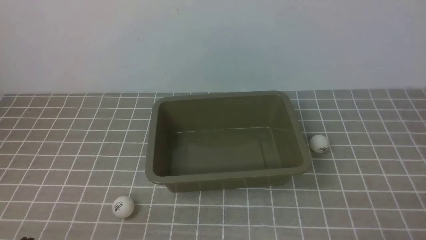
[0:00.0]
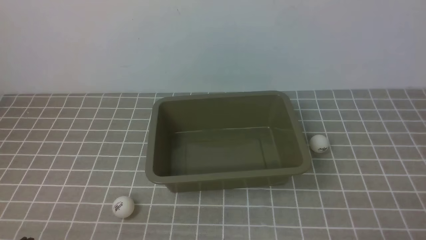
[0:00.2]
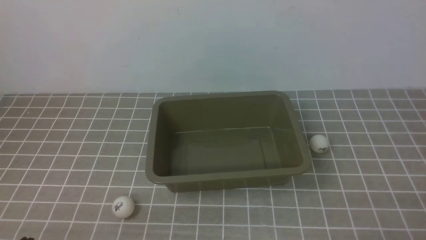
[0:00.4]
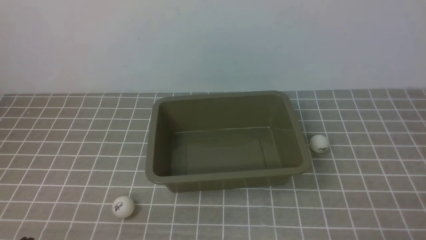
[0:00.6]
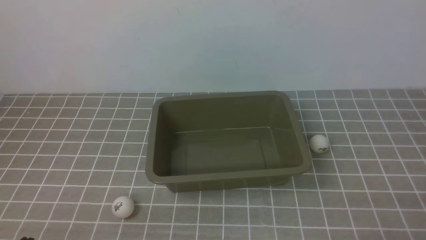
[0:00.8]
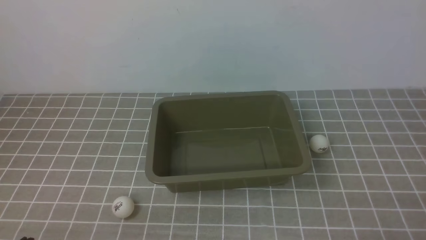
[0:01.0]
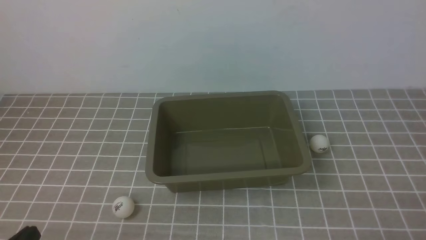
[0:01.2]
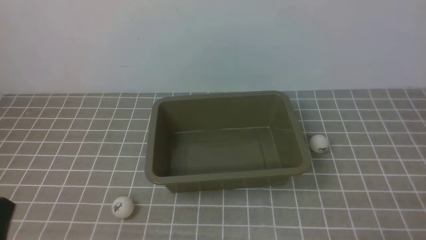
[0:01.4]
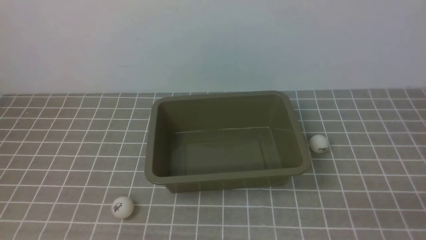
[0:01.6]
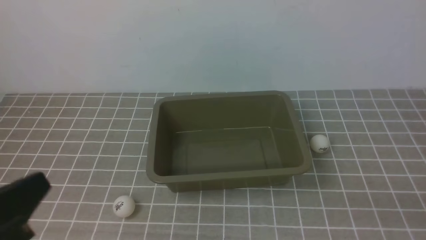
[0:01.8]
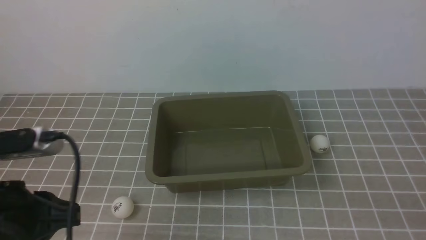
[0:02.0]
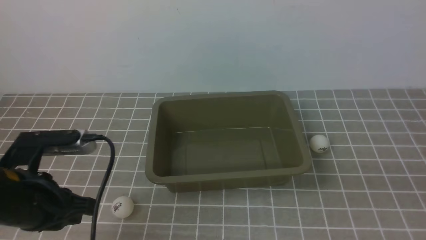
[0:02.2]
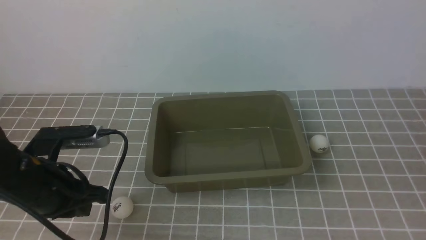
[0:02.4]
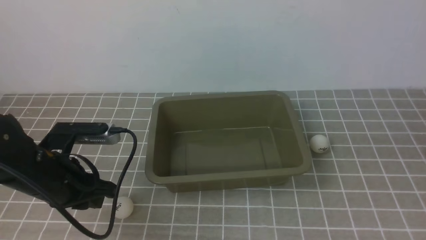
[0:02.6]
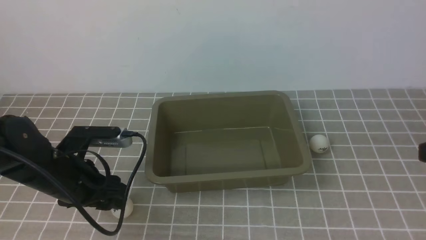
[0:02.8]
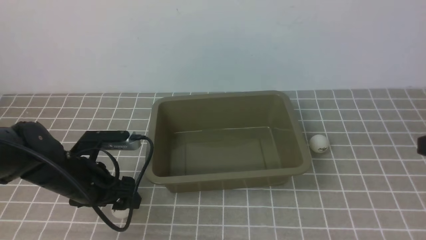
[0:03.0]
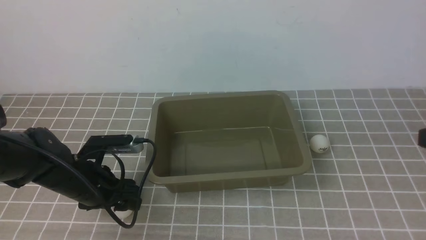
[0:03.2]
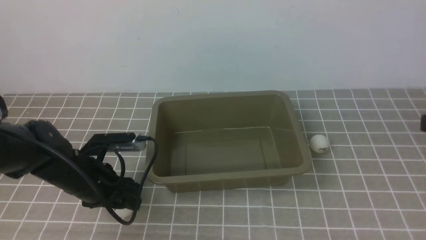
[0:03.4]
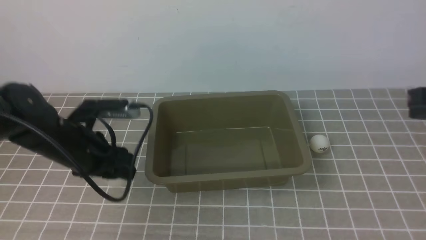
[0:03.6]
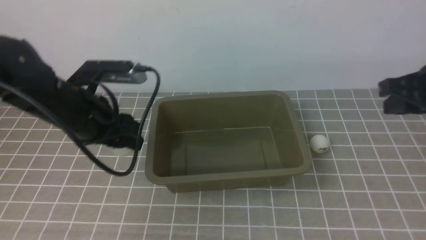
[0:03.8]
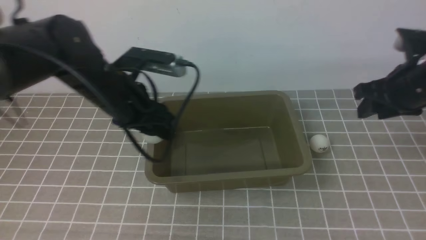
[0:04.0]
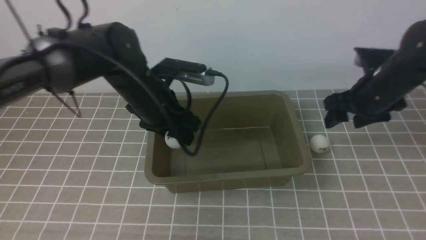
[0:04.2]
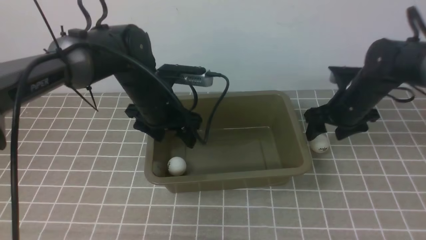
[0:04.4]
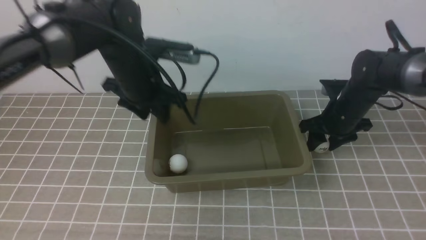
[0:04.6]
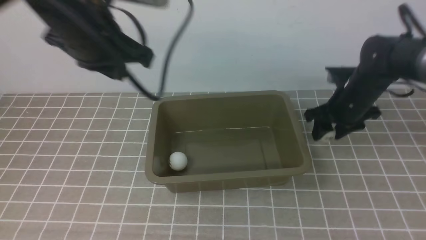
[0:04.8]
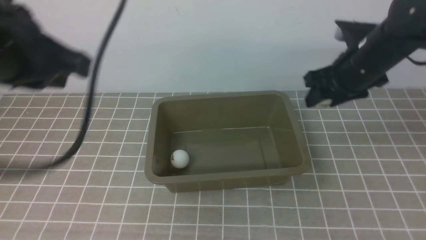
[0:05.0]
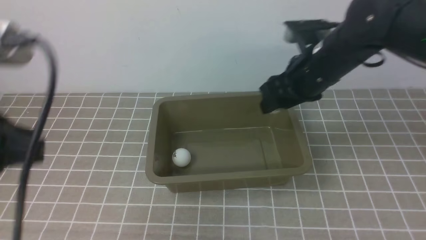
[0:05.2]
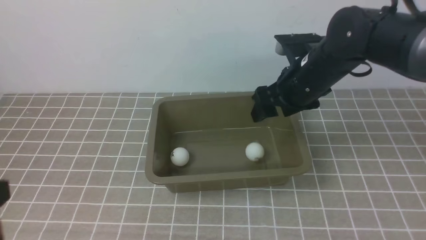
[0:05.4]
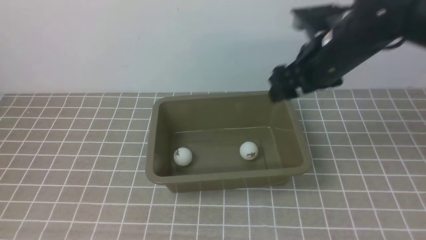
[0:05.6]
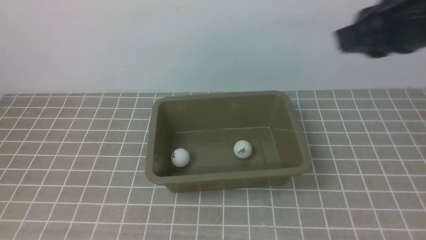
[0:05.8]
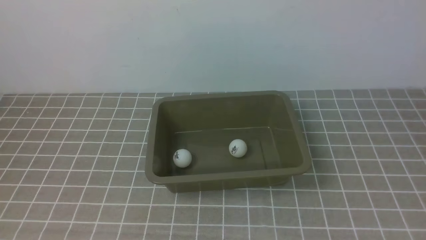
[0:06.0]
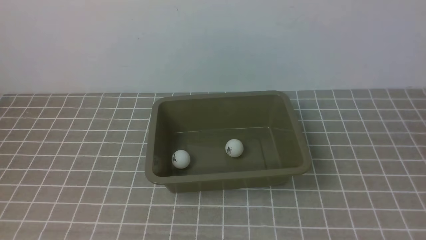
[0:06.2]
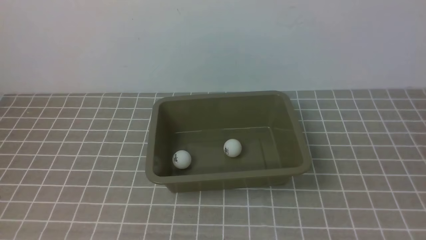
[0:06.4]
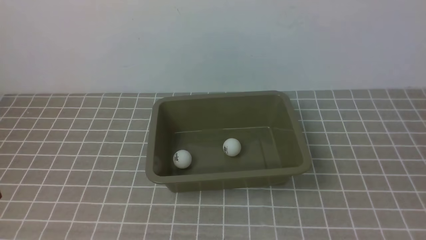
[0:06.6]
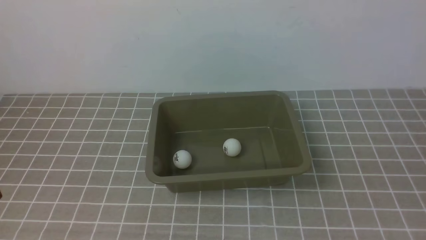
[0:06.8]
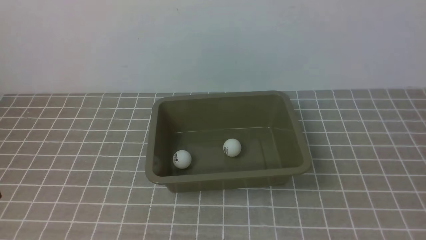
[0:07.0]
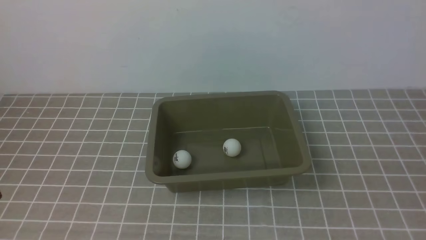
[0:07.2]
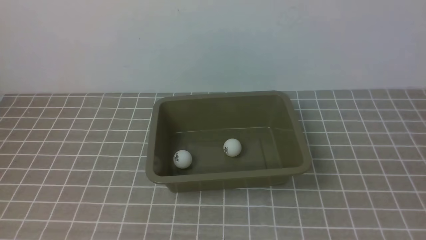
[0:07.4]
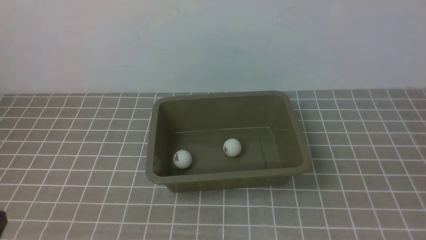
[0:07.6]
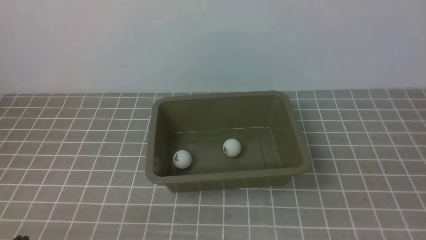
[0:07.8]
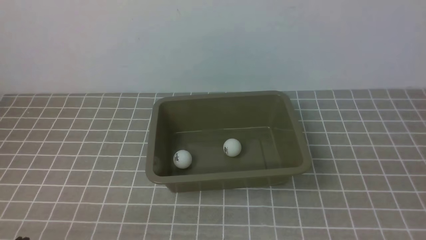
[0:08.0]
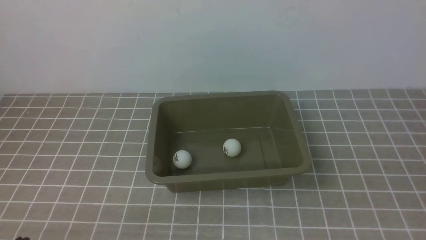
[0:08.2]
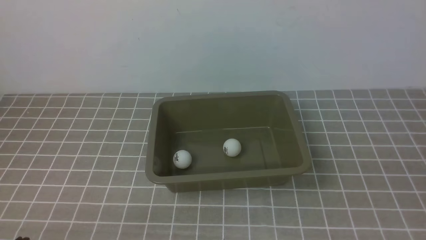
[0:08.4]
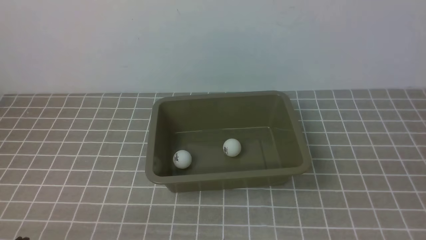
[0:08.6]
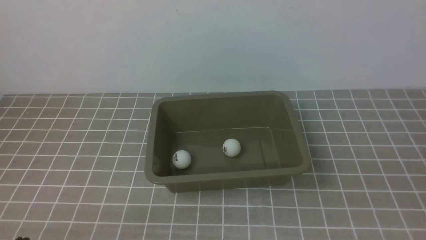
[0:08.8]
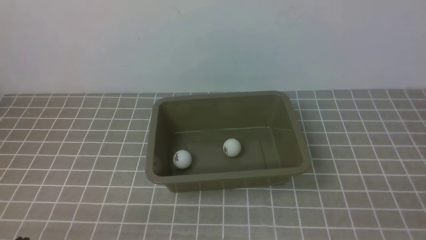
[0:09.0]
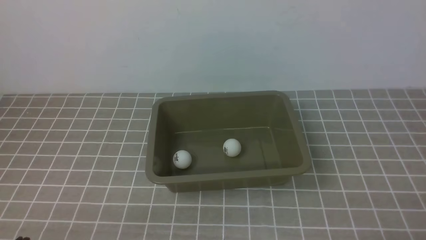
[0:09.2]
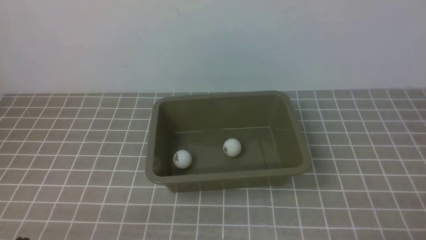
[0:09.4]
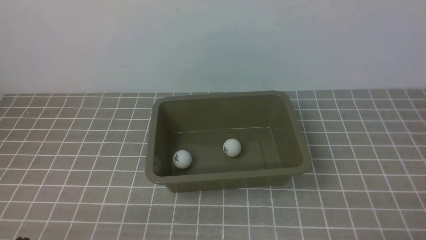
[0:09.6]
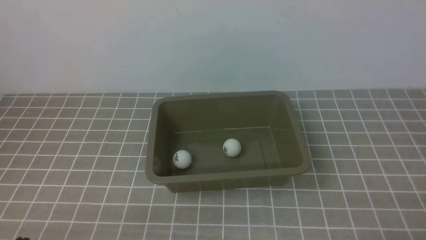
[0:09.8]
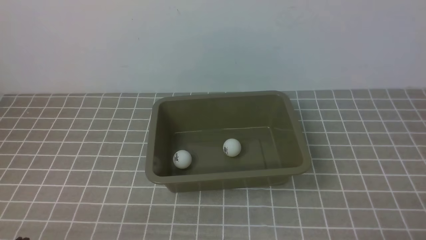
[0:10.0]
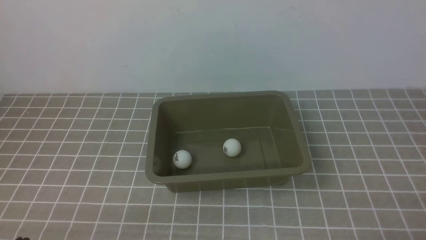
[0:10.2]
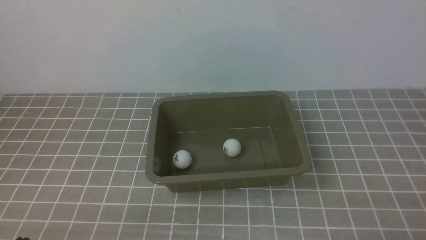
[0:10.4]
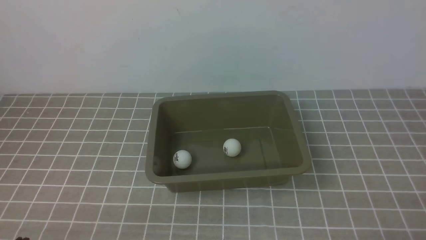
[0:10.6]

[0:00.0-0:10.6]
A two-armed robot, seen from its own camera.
Step, 0:00.0 to 0:03.4: use the left arm to clamp the table tennis ball closest to it.
Step, 0:03.6 to 0:04.4: use the left arm to put the table tennis ball into the box.
Step, 0:04.6 to 0:04.8: use the right arm to clamp the table tennis ball closest to it.
Step, 0:05.0 to 0:05.4: use the right arm to put the table tennis ball into the box.
0:01.6 to 0:03.0: The left gripper travels forward and downward by approximately 25 cm, and opens its fingers; the right gripper moves upward and forward, some 20 cm.
0:03.0 to 0:04.6: The left gripper moves upward, forward and to the right, roughly 20 cm, and closes up. The right gripper moves forward and downward, approximately 30 cm, and opens its fingers.
0:04.6 to 0:06.0: The left gripper goes some 30 cm backward, and closes up, while the right gripper heads backward and upward, covering roughly 35 cm, and closes up.

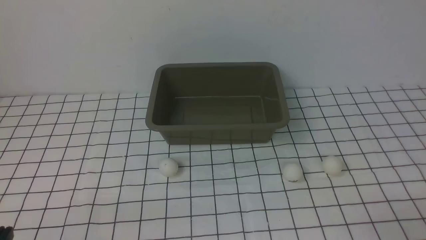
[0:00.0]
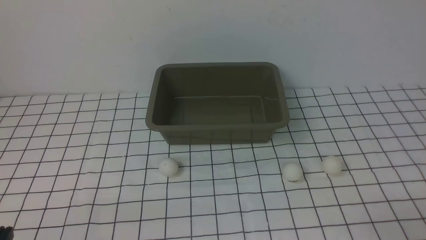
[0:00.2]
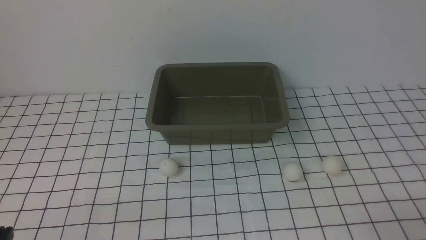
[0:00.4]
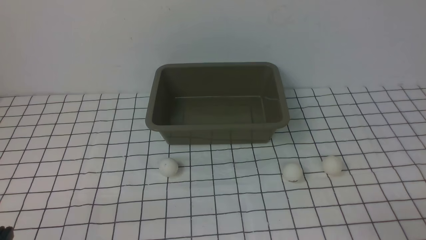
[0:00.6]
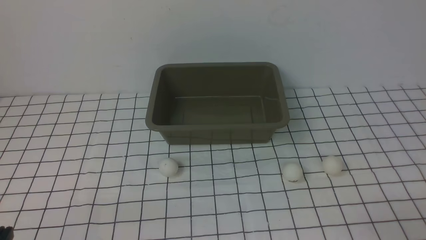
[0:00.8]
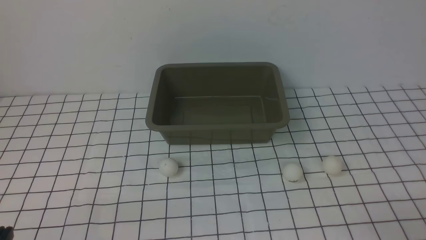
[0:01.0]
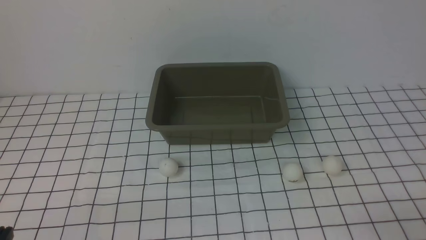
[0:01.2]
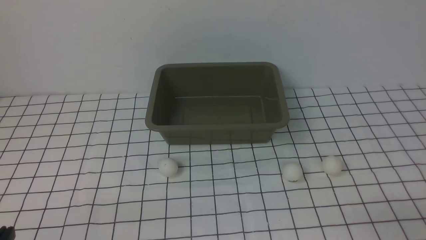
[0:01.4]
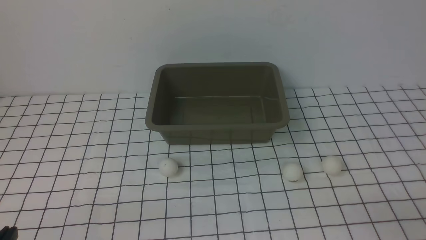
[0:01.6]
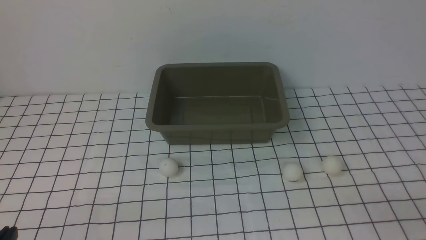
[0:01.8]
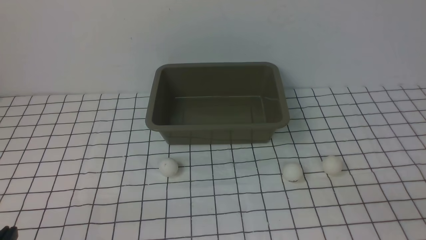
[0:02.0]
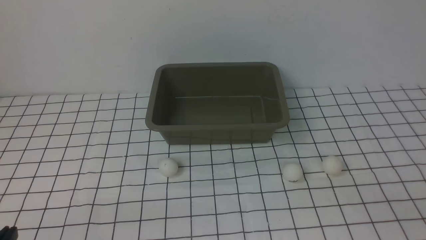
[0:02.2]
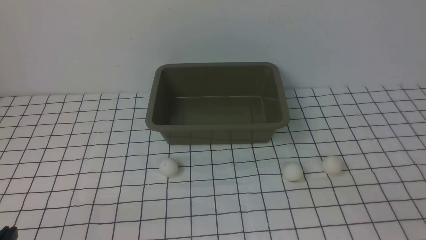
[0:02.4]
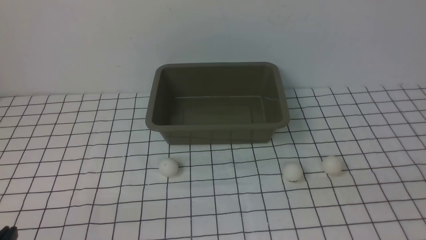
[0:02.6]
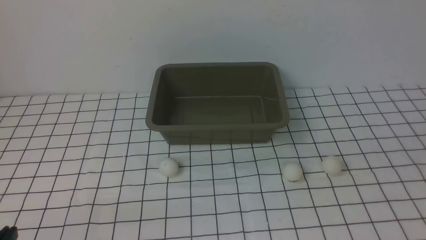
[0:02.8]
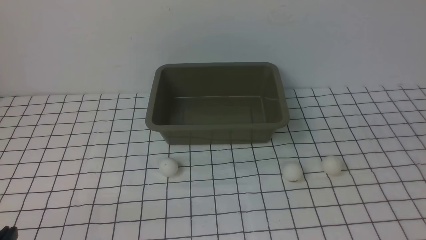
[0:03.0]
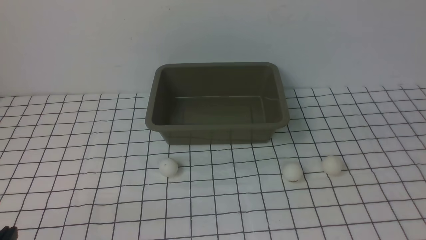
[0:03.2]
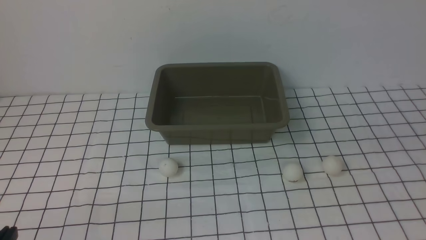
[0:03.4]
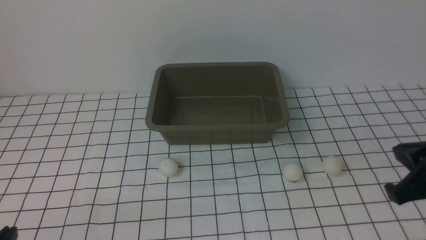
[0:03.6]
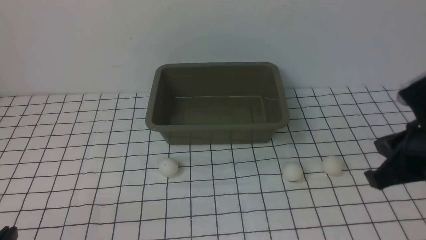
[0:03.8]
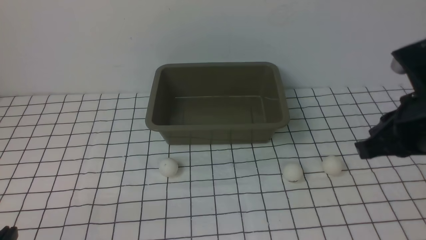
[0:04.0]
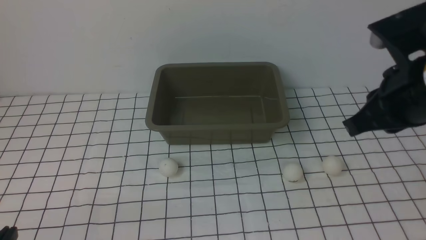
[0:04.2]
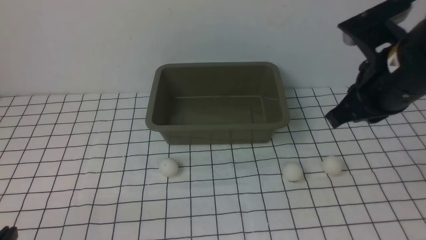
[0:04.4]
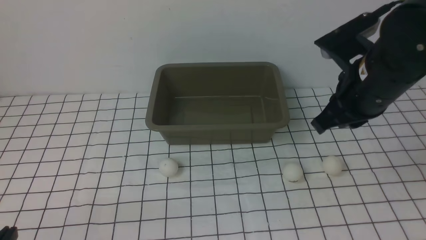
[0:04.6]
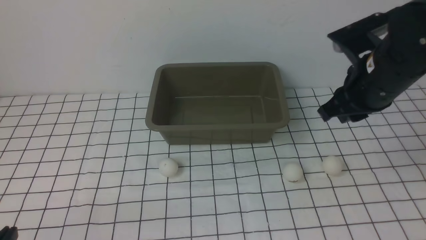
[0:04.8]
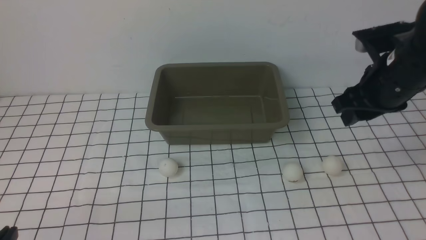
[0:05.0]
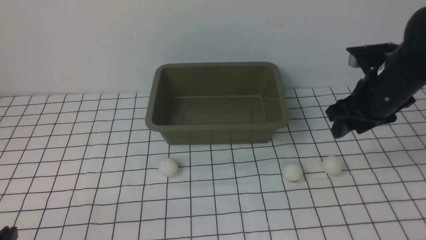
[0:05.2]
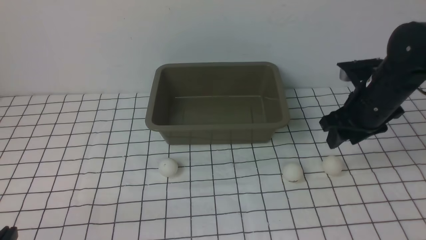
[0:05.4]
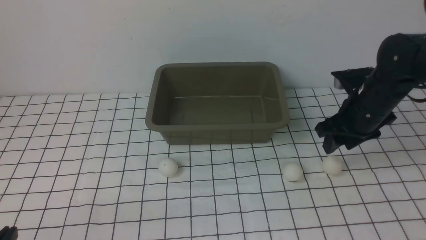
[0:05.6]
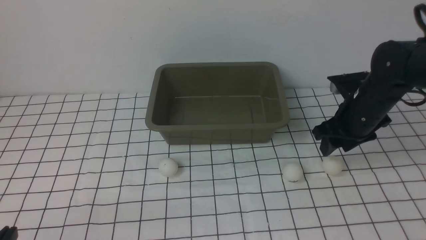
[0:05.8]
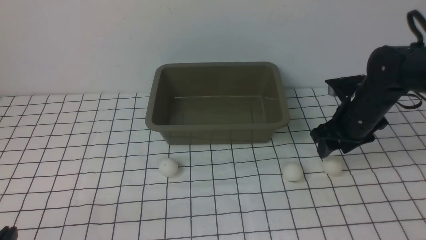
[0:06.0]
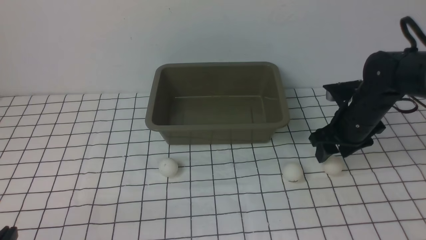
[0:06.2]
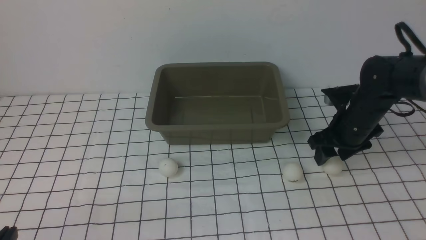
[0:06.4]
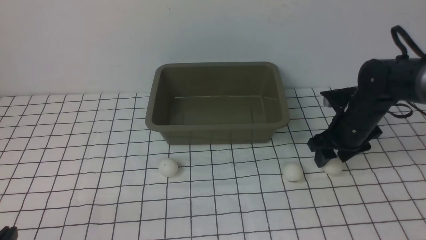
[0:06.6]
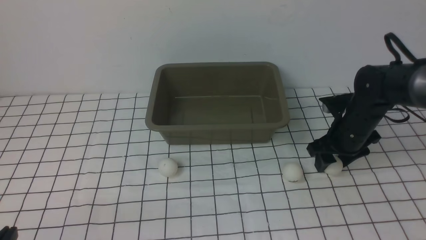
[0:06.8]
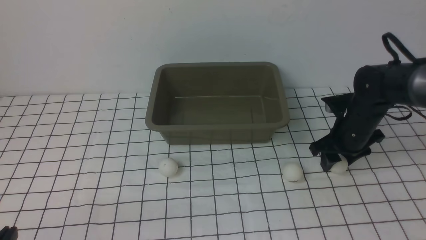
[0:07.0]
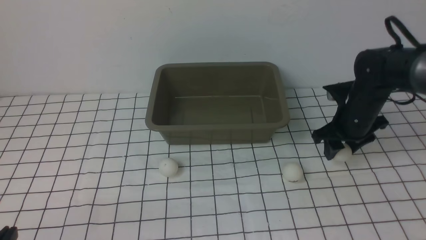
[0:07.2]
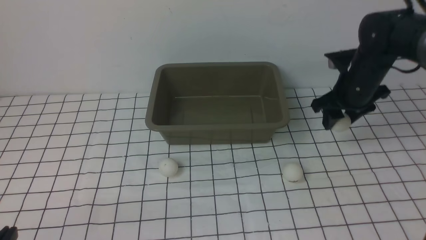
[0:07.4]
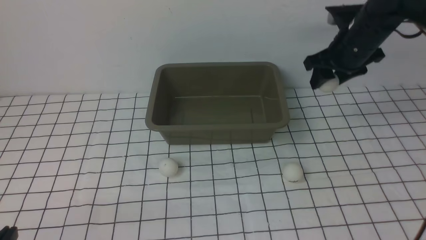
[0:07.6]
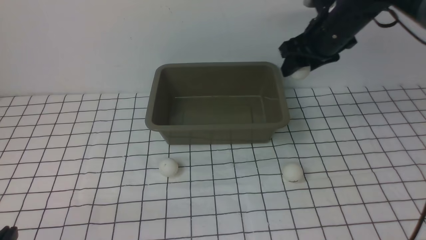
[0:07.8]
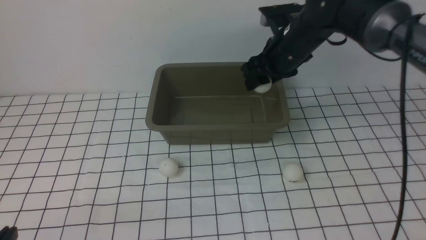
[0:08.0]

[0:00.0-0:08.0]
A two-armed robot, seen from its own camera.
Step, 0:00.0 to 0:07.2: use the right arm to clamp the table tennis ball closest to it.
0:03.2 to 0:04.8: The right gripper travels forward and to the left by about 20 cm, and opens up.
0:04.8 to 0:06.4: The right gripper heads downward and forward, covering approximately 15 cm, and opens.
0:06.4 to 0:08.0: The right gripper is displaced upward, to the left and forward by about 15 cm.
